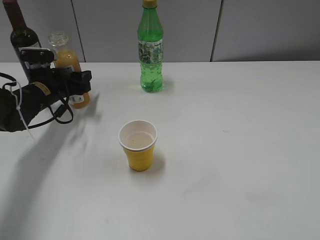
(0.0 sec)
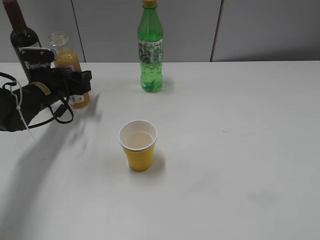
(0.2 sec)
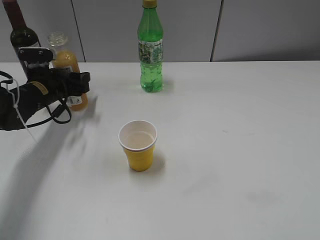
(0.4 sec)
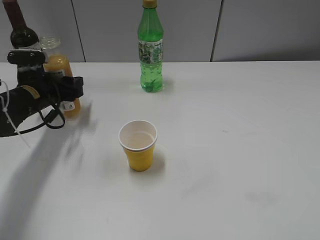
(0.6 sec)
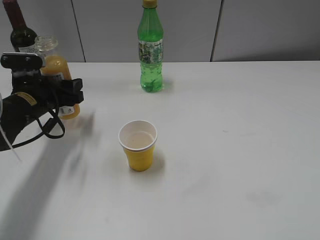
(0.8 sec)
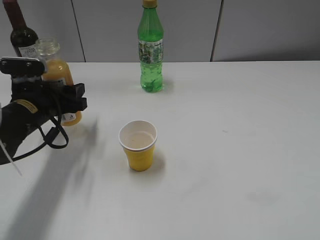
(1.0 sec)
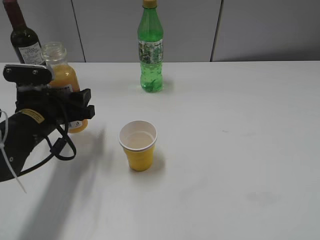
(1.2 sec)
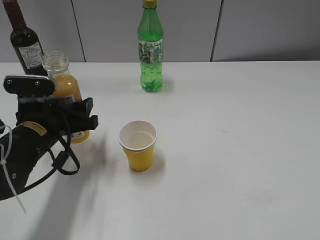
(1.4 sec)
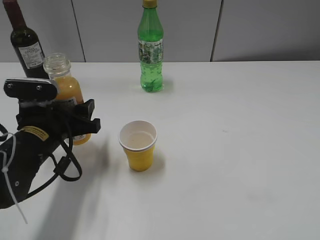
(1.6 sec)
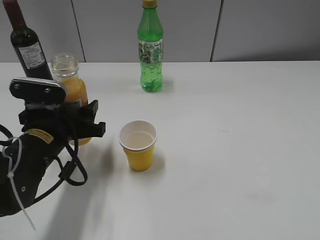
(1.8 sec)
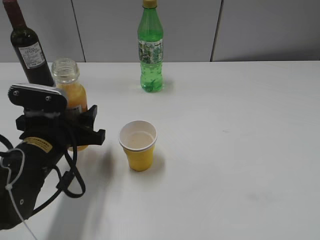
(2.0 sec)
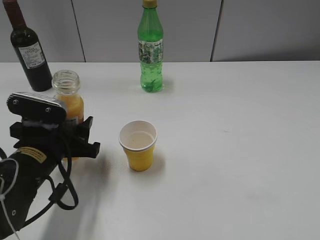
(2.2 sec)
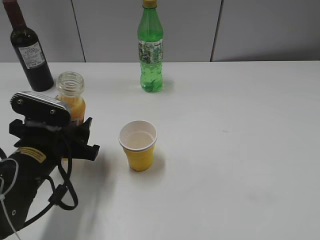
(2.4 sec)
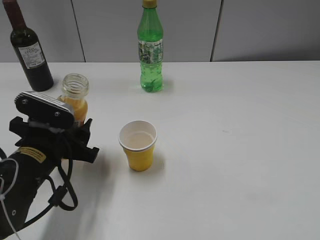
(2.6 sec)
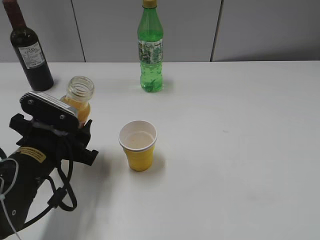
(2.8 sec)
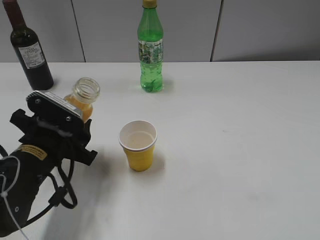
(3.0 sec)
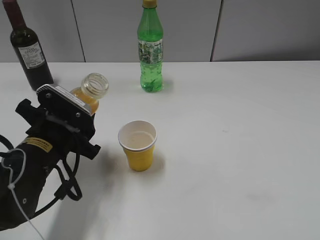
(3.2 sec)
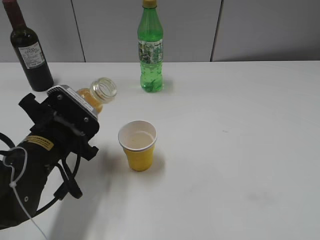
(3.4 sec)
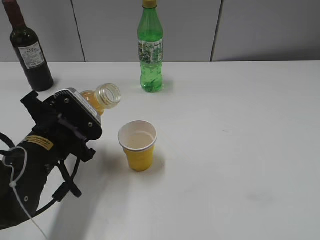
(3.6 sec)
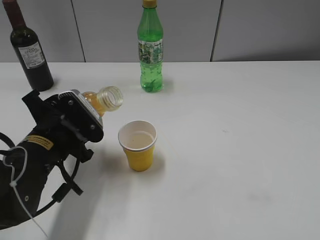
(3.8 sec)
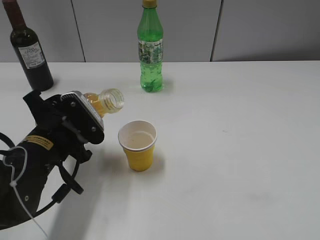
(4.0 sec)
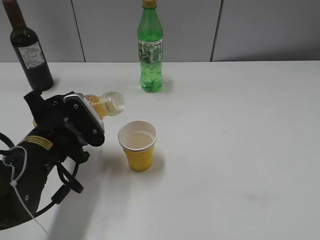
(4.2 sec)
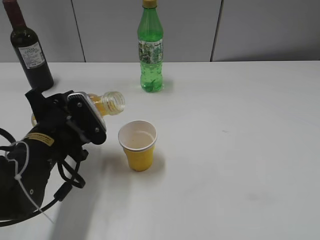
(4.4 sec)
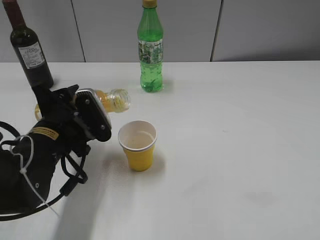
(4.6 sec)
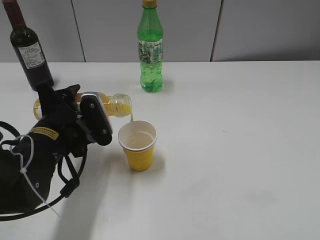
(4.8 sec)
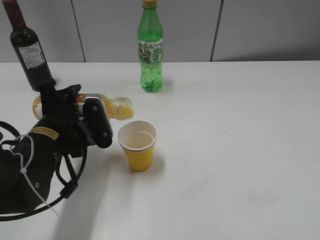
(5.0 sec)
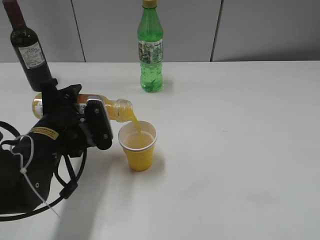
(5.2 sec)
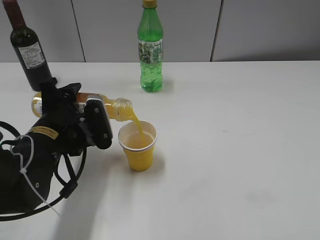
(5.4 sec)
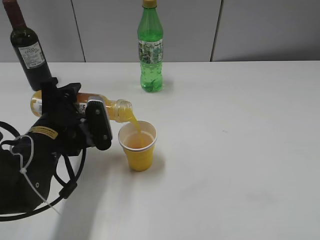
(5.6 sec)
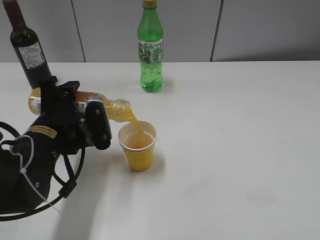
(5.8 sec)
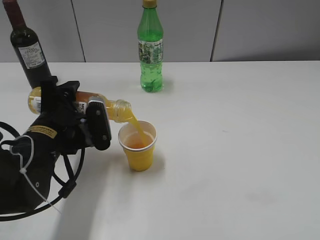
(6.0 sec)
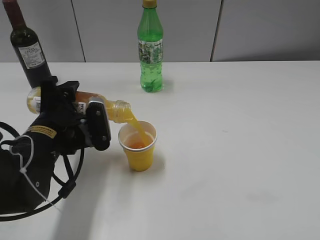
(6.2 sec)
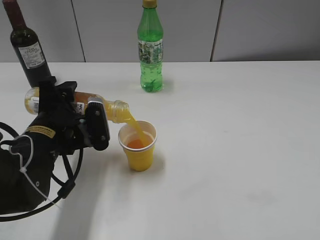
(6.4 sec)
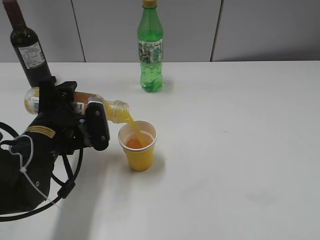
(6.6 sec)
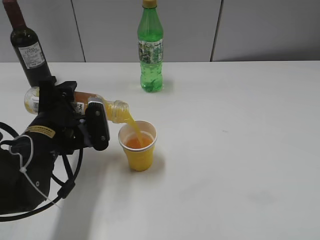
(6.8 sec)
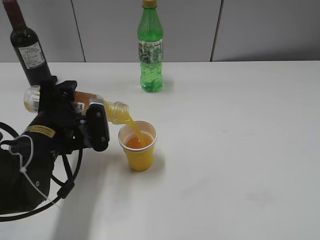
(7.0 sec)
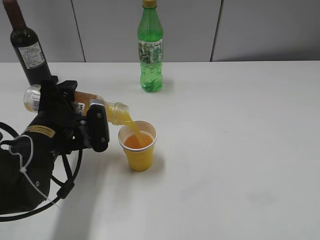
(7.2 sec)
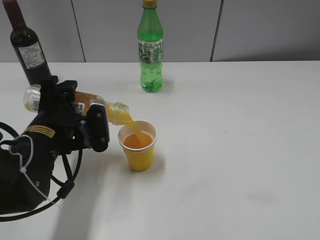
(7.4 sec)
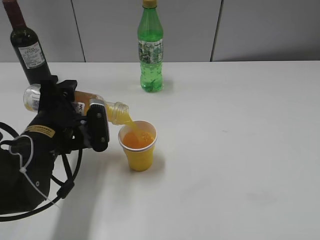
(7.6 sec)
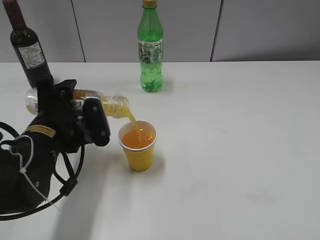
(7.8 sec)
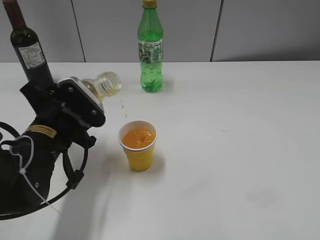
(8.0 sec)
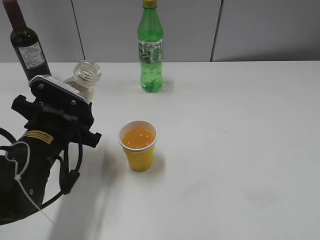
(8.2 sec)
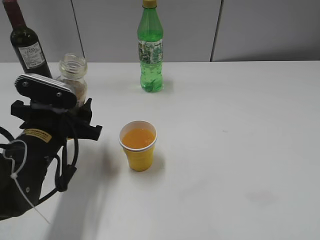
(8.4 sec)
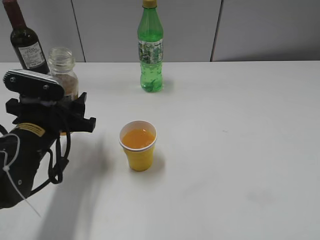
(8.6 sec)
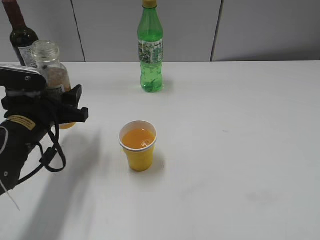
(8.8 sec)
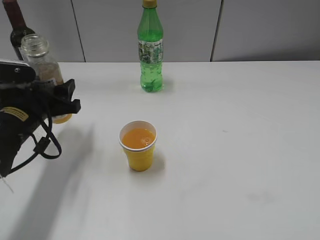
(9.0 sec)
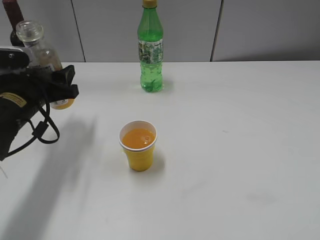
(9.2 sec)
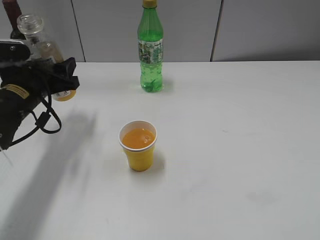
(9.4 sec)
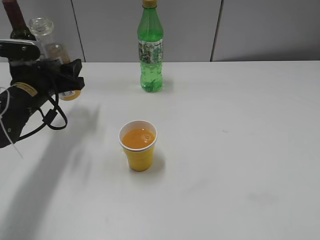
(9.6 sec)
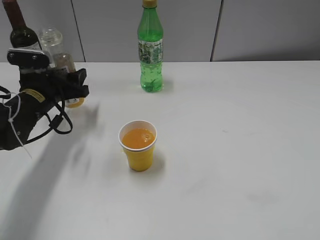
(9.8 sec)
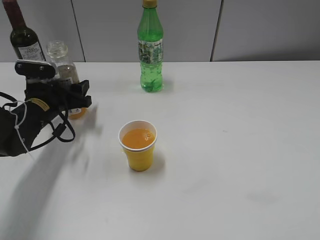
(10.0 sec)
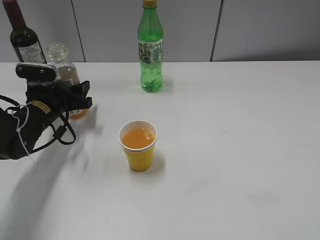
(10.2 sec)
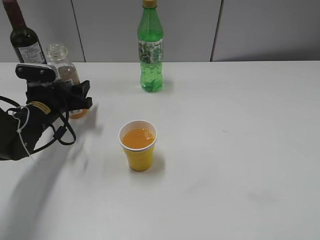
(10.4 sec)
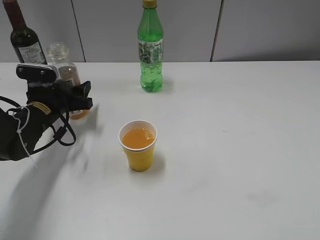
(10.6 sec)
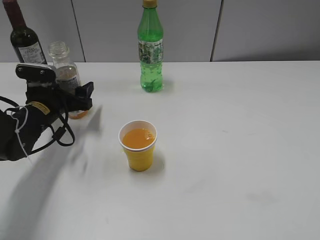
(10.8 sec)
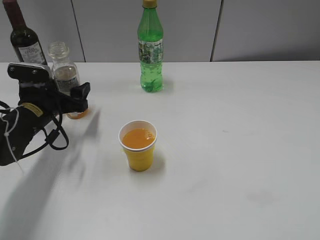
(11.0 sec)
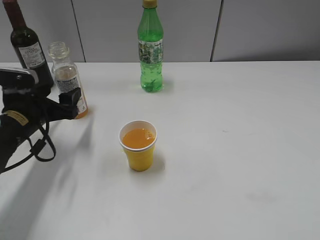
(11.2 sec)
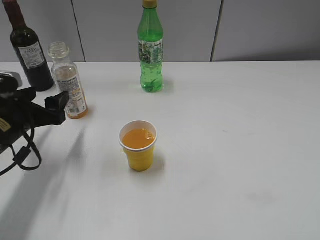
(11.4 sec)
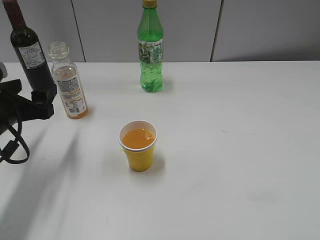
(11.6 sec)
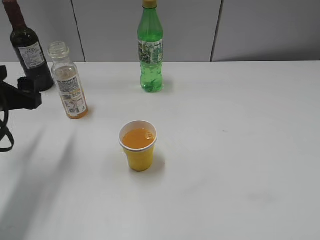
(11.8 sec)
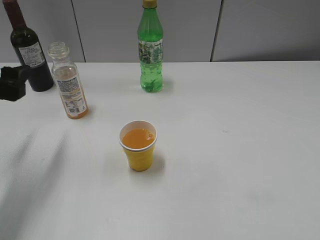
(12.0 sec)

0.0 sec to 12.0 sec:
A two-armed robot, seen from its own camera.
Step, 0.4 sec to 8.0 sec: Pour the orange juice from bottle to cup with left gripper.
Step, 8.2 sec to 10.8 sec: Place the orange juice bottle on the table with left gripper.
0.0 sec to 1.6 sec: The left gripper is displaced backward by approximately 15 cm.
6.0 sec to 7.6 sec: The grippers stay close to where they were, moving slightly.
7.6 sec to 9.0 sec: The left gripper goes about 5 cm to the left.
9.0 sec to 10.4 sec: The left gripper travels forward and downward by some 10 cm.
10.4 sec to 12.0 sec: The left gripper heads upward and backward, covering about 15 cm, and opens its fingers.

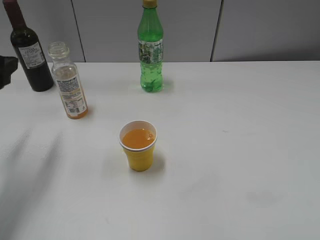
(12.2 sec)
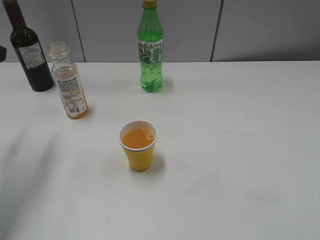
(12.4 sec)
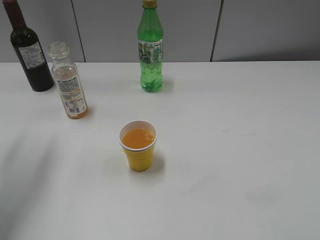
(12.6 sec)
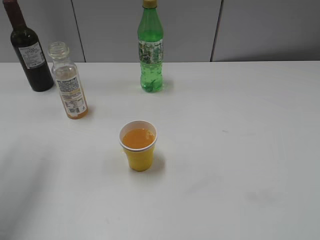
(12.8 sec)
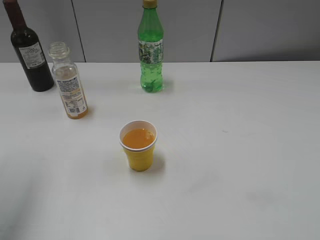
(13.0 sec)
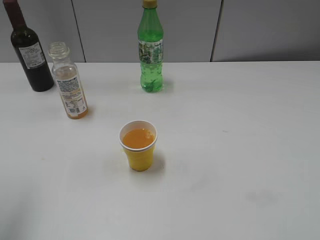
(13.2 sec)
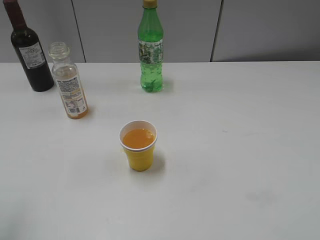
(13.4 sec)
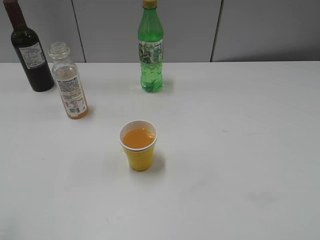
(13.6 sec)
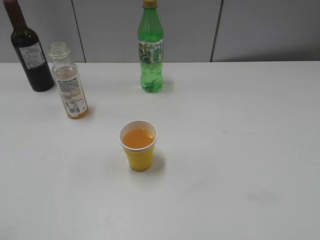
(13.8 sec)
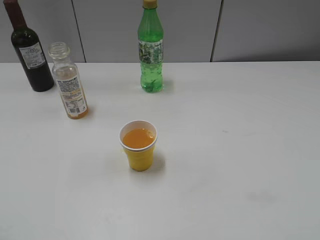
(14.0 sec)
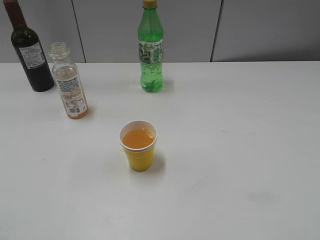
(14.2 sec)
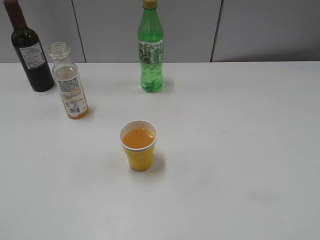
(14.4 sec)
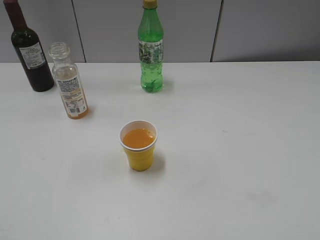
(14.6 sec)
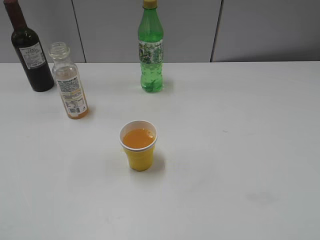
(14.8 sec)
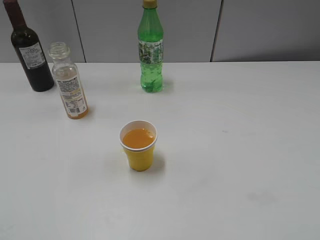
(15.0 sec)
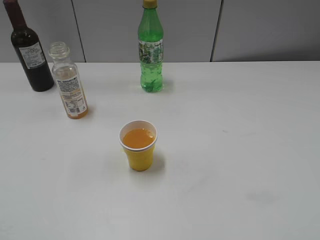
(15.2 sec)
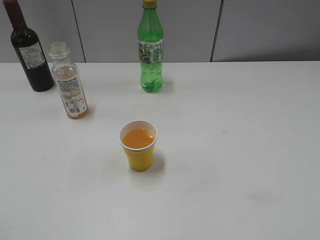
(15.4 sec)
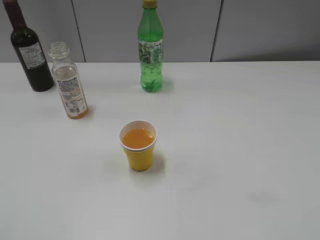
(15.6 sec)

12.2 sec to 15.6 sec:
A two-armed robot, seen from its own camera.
12.2 sec to 13.8 sec: The left gripper goes about 25 cm backward and upward.
